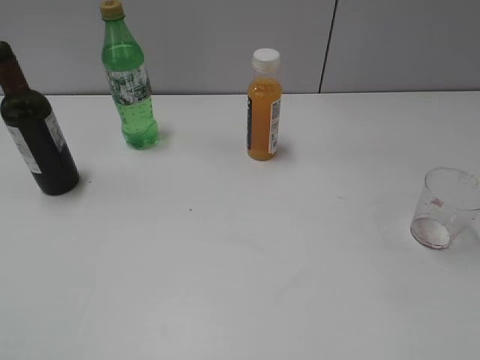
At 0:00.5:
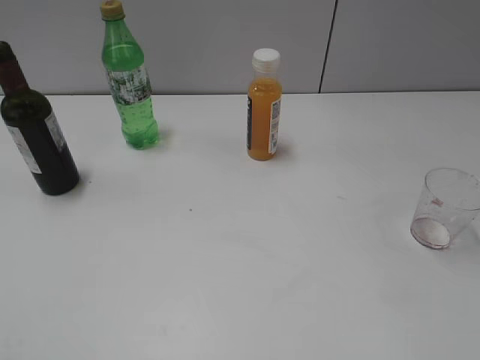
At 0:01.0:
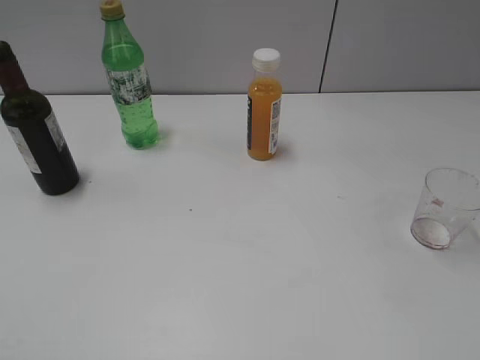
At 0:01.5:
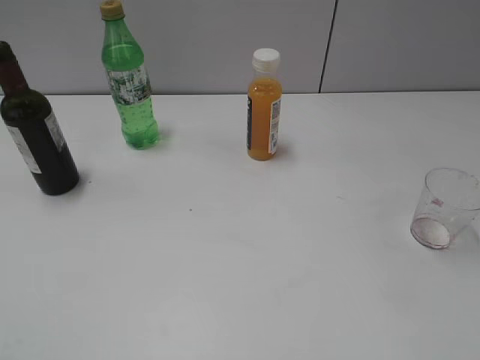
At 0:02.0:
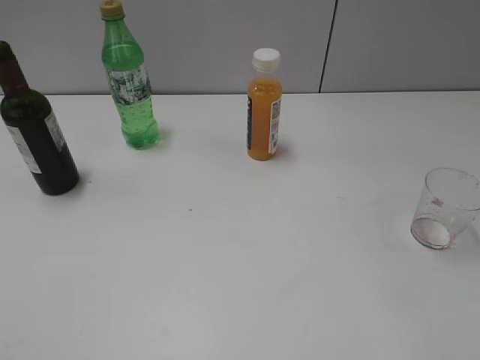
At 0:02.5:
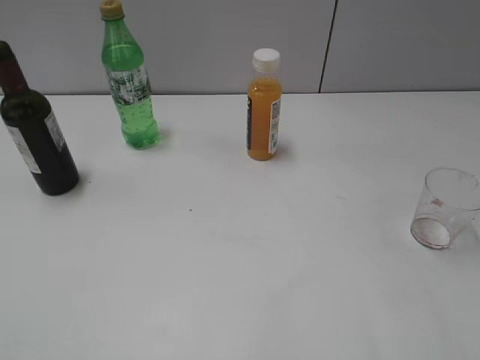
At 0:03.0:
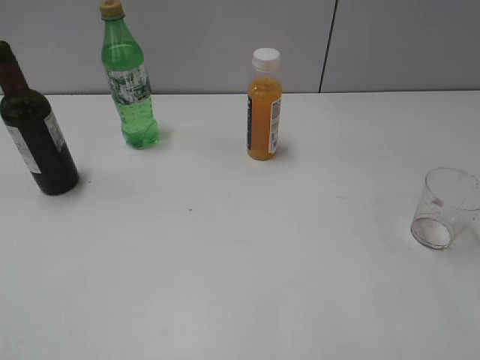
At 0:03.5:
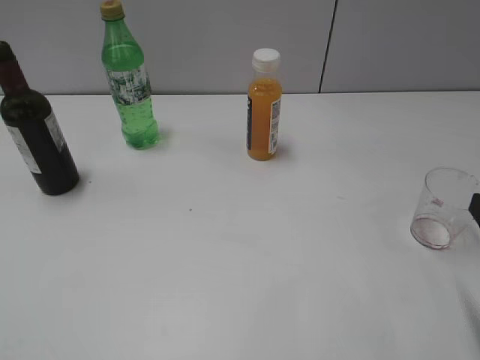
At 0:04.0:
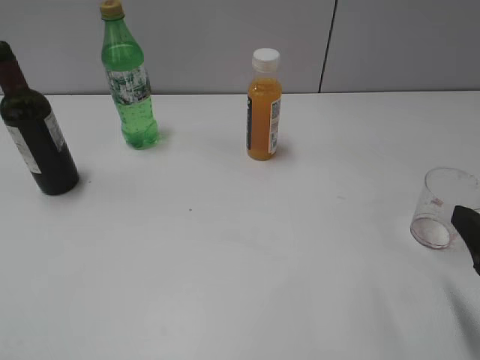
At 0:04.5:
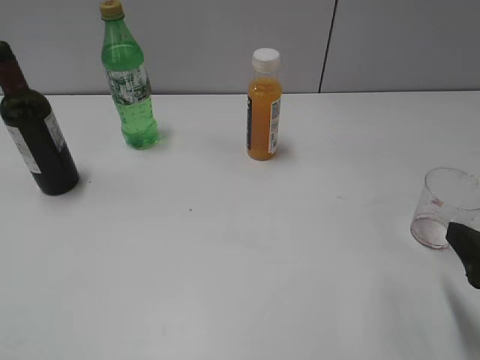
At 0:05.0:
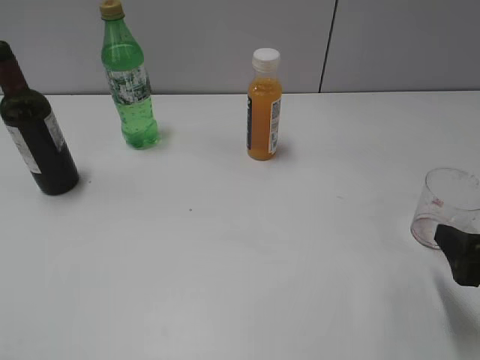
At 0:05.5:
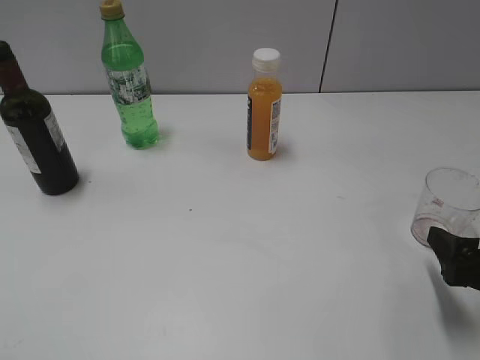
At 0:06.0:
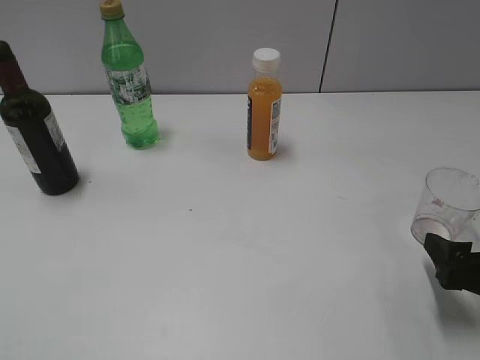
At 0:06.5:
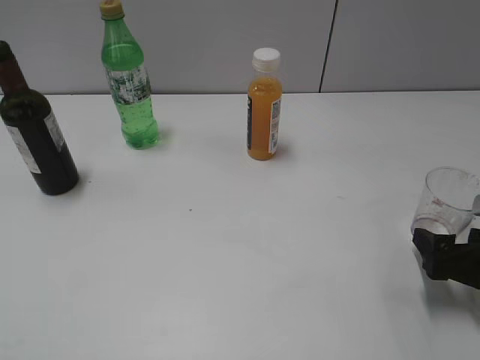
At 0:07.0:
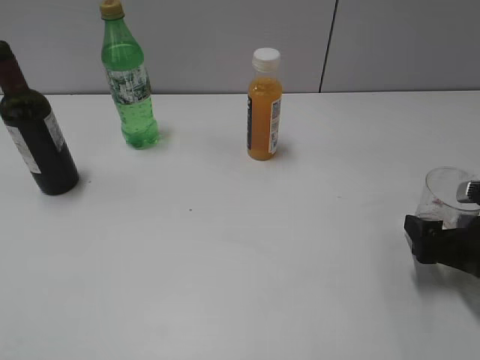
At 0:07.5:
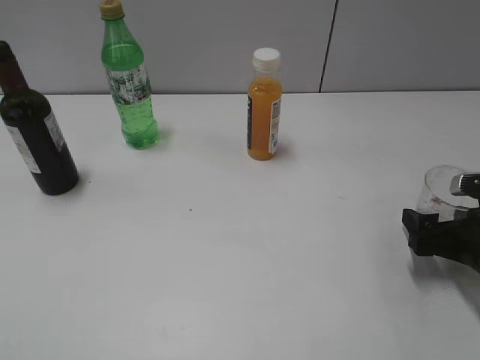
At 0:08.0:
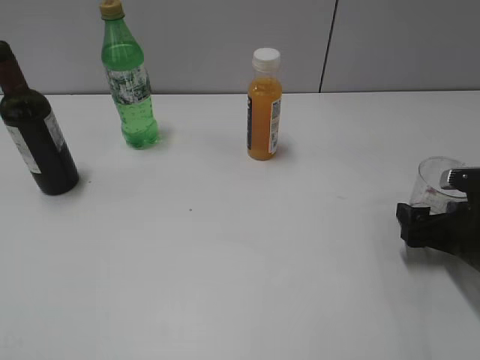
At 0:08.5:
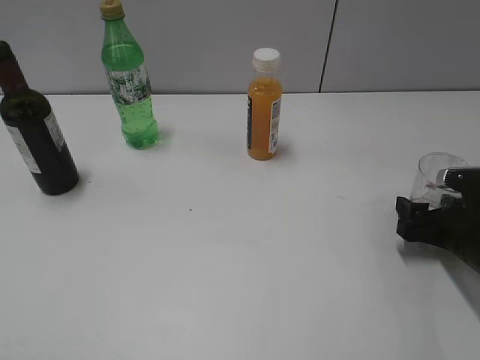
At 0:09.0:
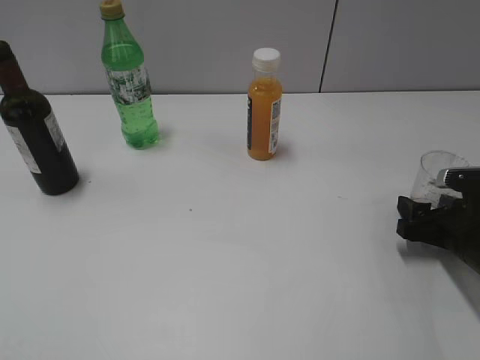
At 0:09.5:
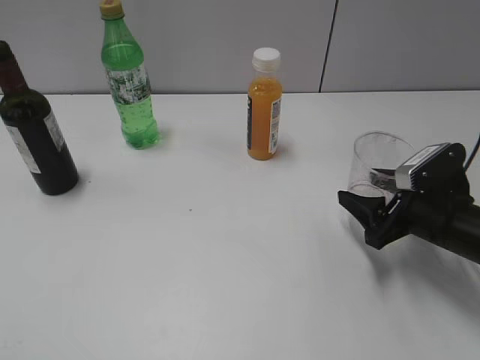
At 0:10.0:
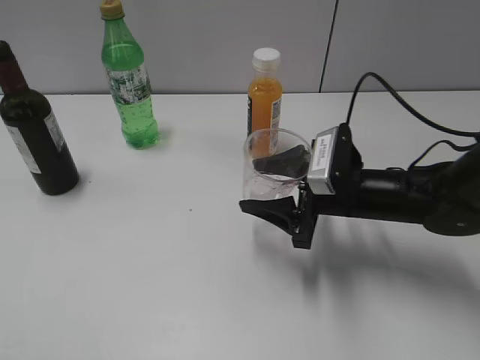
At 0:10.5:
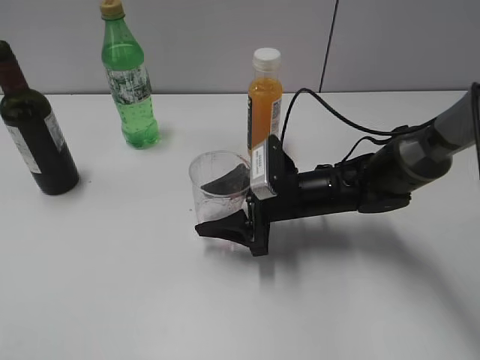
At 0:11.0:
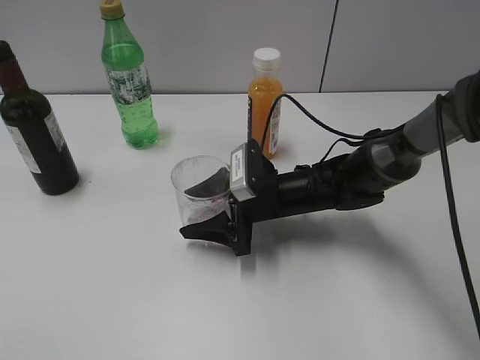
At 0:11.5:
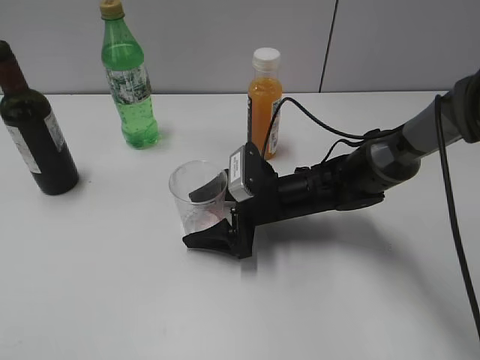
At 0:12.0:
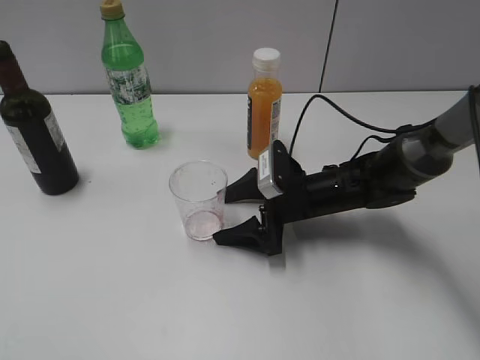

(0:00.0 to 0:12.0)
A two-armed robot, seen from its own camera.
Step, 0:01.0 - 0:08.5: Grasp the transparent cup with right gripper.
Step, 0:09.0 - 0:12.0: Place the transparent cup on the table with right gripper.
0:02.0 - 0:04.0: The right gripper goes some 15 cm downward and forward.
0:04.0 - 0:06.0: The right gripper moves downward, about 5 cm.
0:06.0 - 0:08.0: The right gripper travels forward by about 10 cm.
0:08.0 - 0:10.0: The right gripper travels to the left by about 15 cm, and closes.
0:10.0 - 0:12.0: The right gripper travels downward by some 5 cm, and opens its fingers.

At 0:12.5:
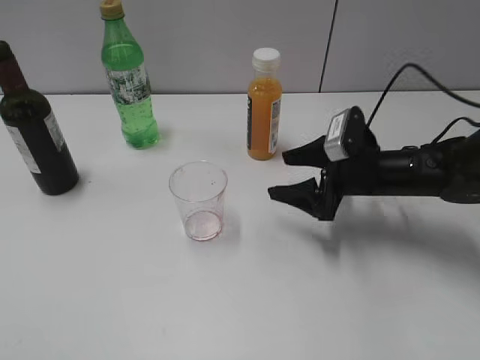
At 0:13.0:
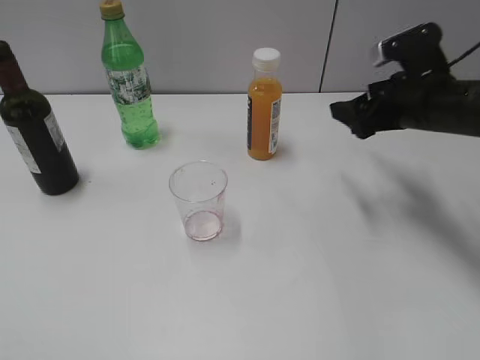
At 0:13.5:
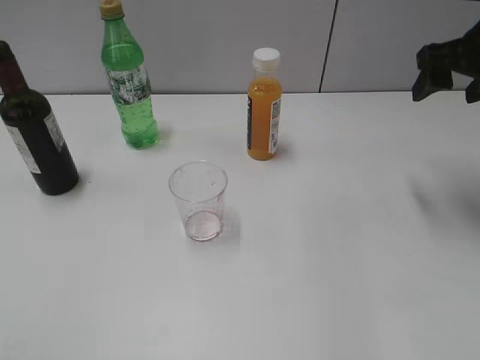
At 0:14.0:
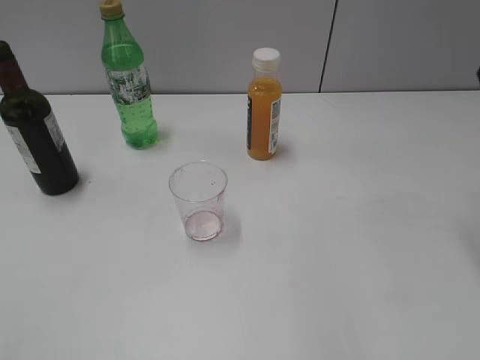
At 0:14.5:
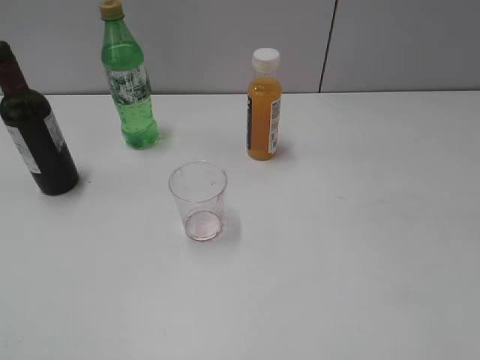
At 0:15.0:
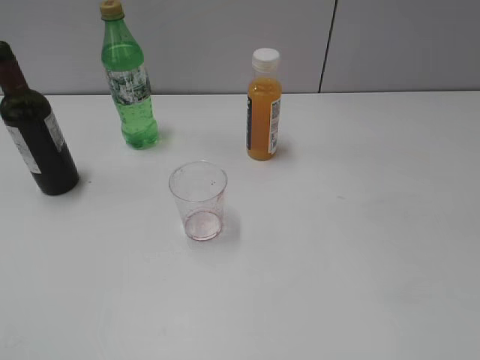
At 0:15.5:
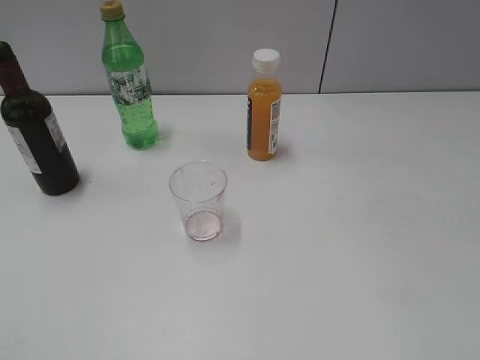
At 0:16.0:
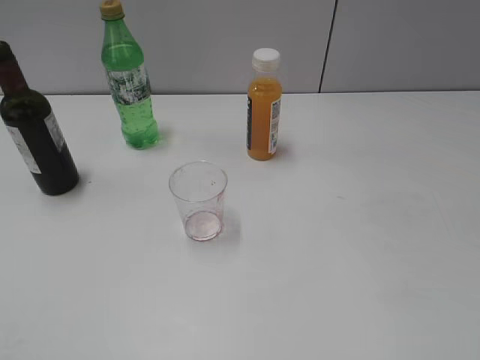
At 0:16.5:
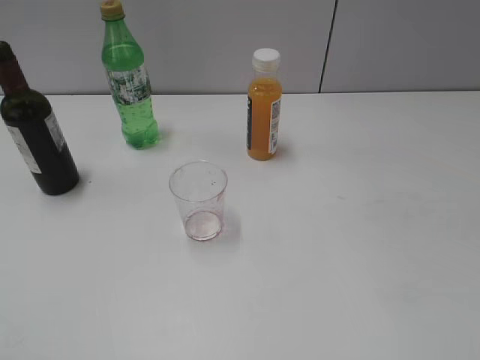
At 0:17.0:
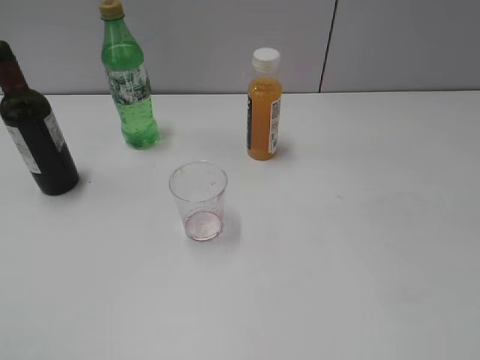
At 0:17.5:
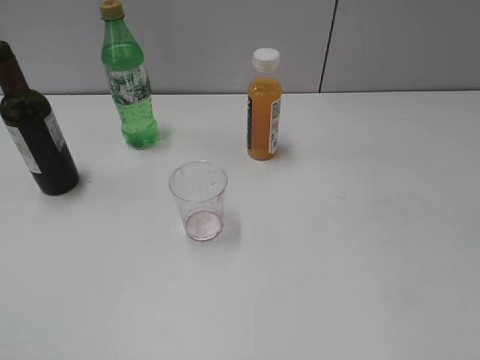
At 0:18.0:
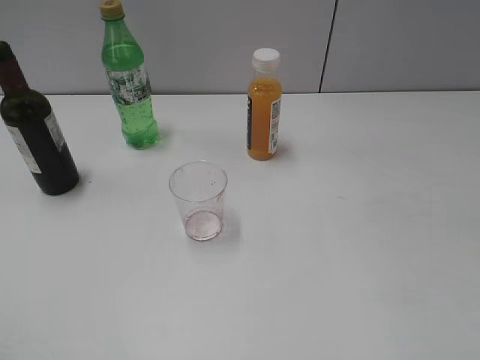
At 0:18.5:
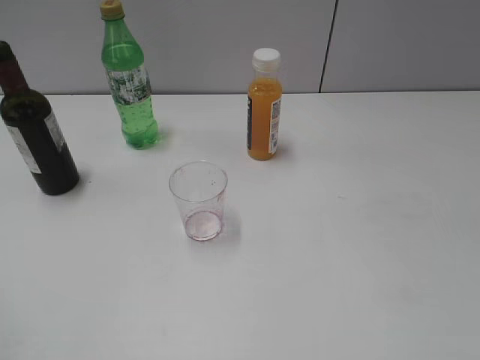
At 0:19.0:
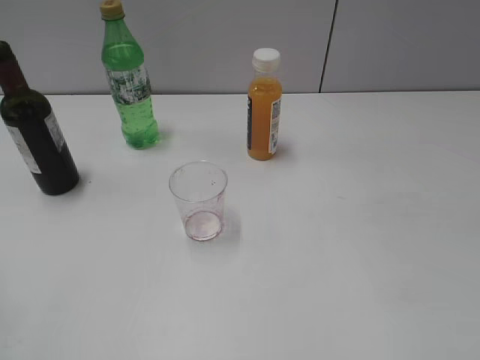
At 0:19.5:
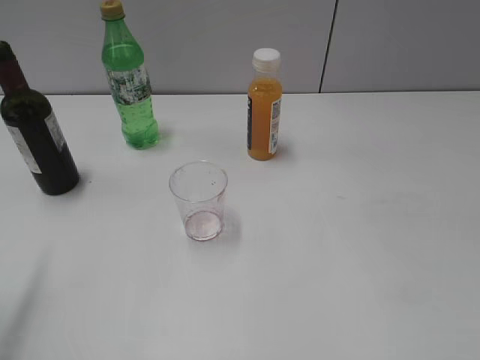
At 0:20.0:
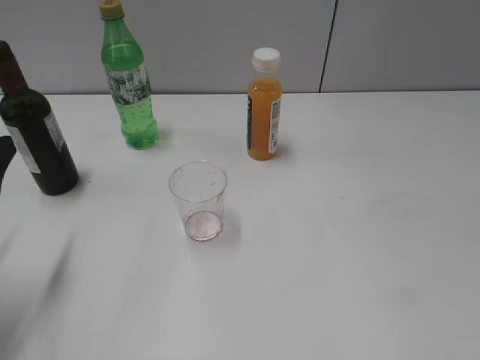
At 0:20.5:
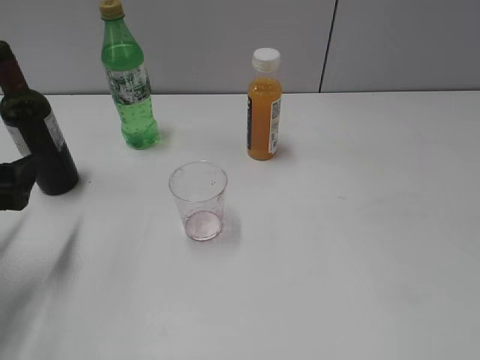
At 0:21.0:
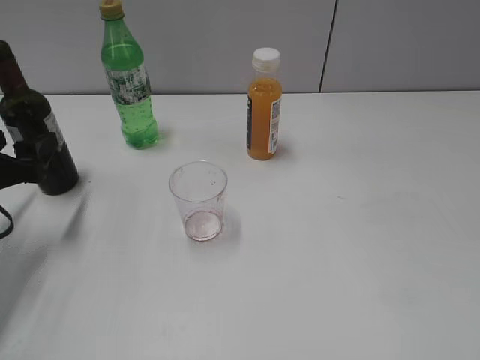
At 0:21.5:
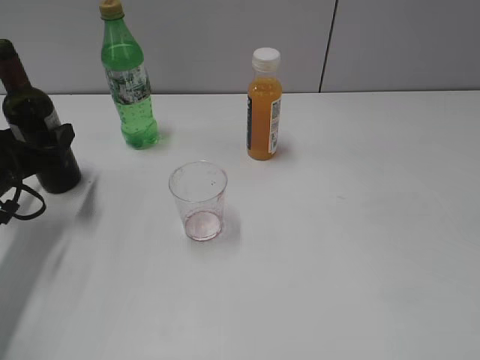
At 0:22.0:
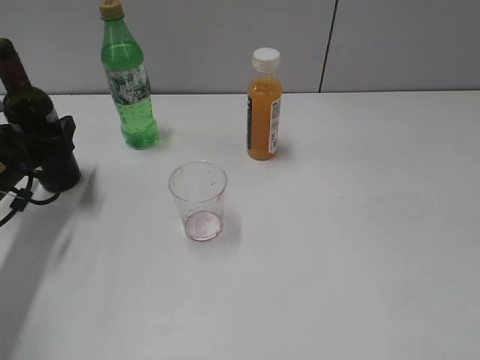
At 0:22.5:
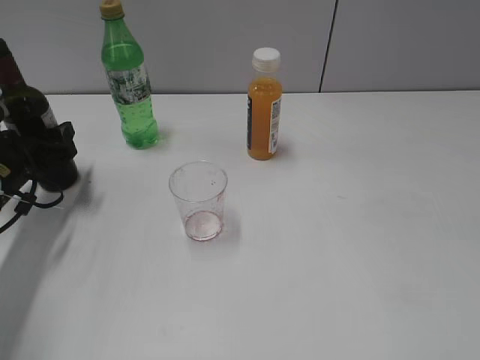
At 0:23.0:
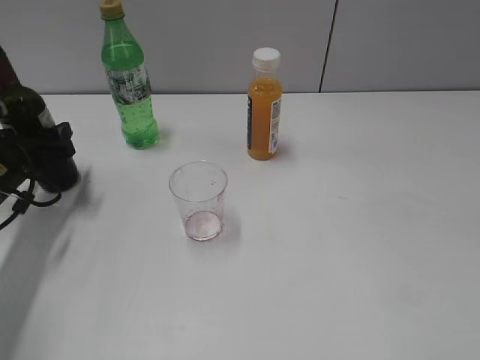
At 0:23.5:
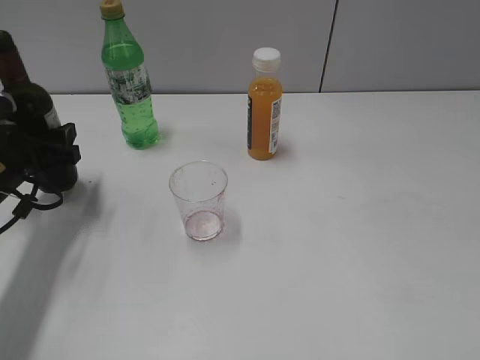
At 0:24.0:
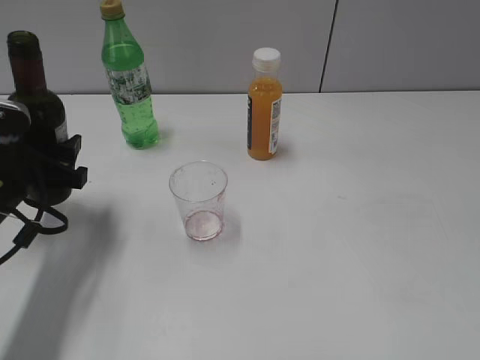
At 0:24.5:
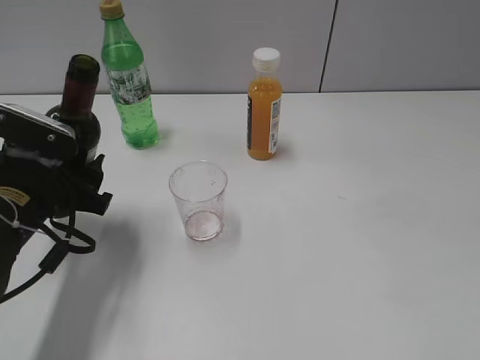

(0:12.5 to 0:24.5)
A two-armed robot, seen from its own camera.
Step, 0:12.5 - 0:23.0: Grasp the bottle with red wine with left gripper.
0:12.5 - 0:14.5: The right gripper travels upward, backward and to the right by roughly 35 cm.
0:18.5 - 0:20.5: The left gripper moves downward and forward, approximately 20 cm.
0:20.5 - 0:22.5: The left gripper heads forward, covering about 10 cm.
0:22.5 - 0:24.5: The left gripper is displaced backward and to the right by some 10 cm.

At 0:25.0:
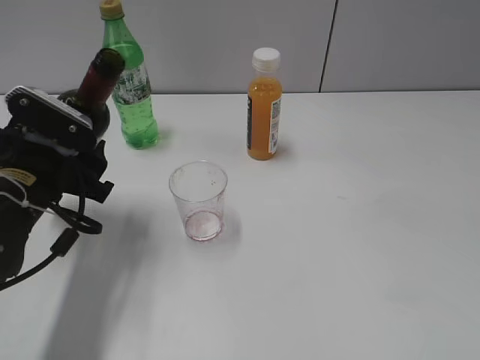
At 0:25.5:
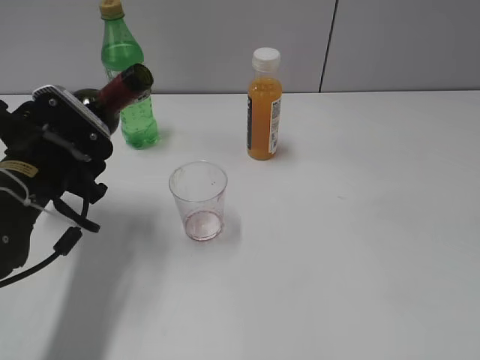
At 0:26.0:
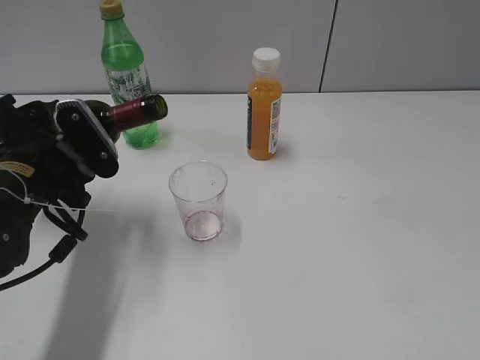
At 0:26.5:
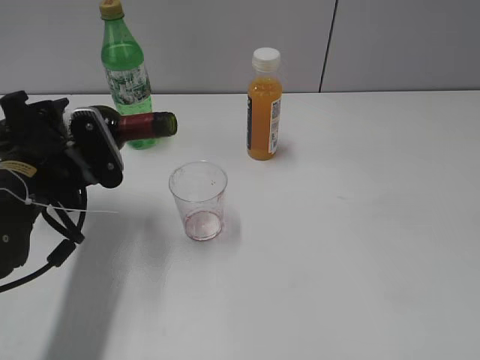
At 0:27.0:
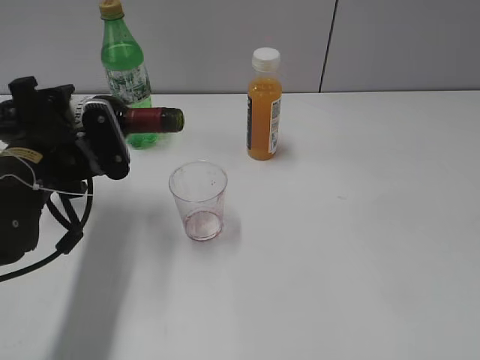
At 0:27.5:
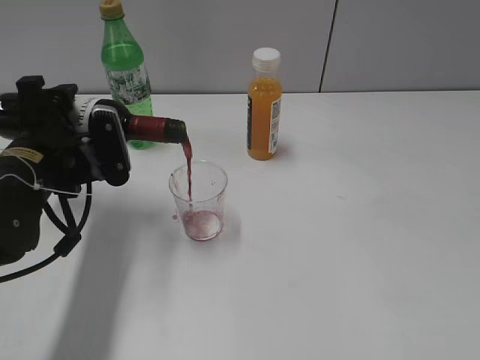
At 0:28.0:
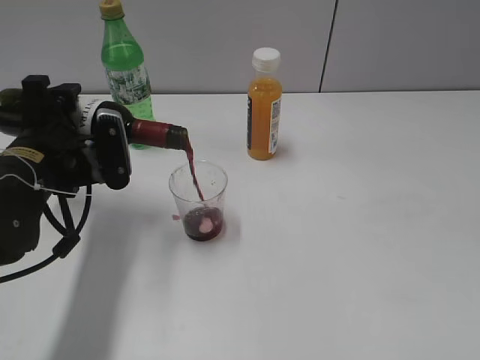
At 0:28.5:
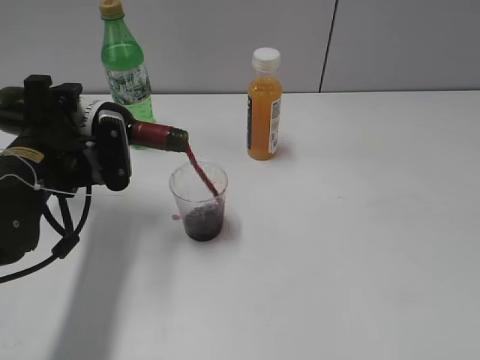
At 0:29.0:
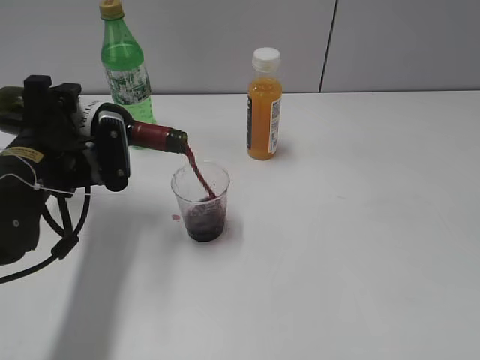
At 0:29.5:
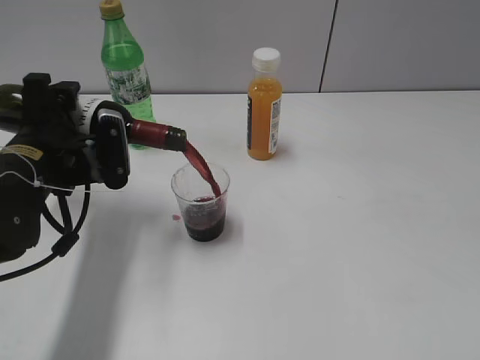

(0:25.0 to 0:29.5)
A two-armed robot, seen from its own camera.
0:27.0 - 0:29.5: The grippers stay close to where they were, moving slightly.
